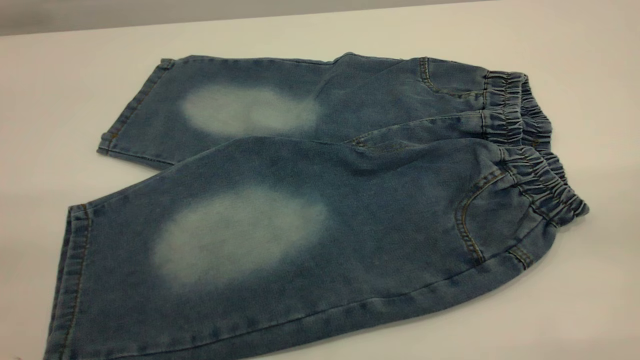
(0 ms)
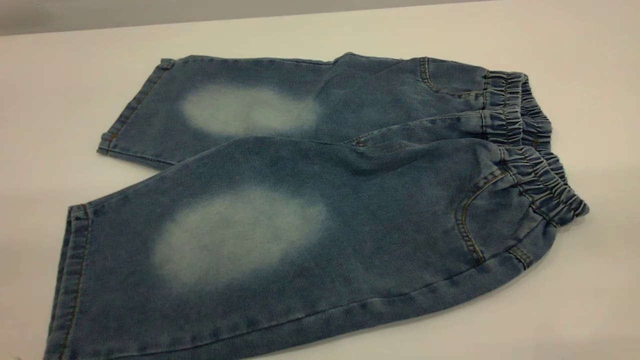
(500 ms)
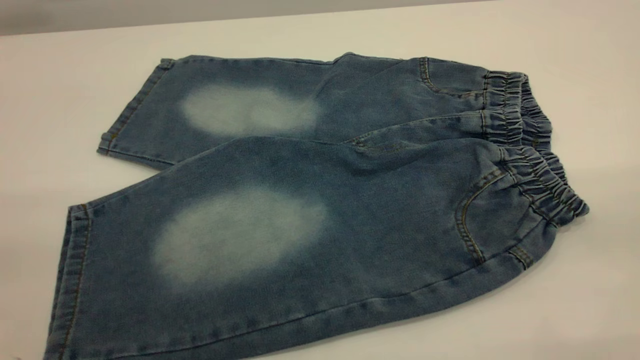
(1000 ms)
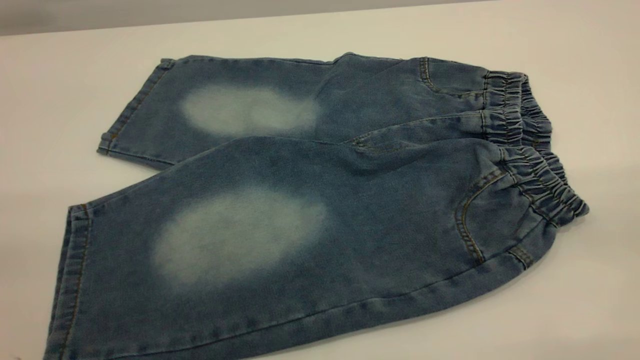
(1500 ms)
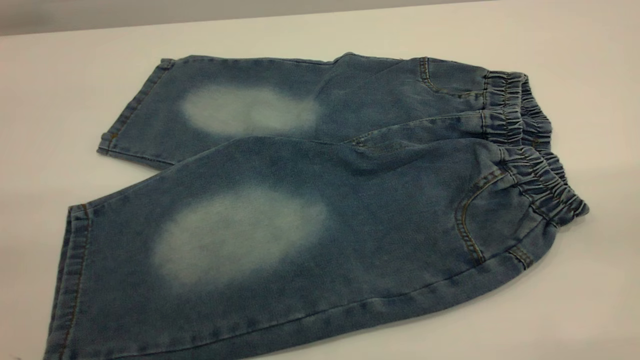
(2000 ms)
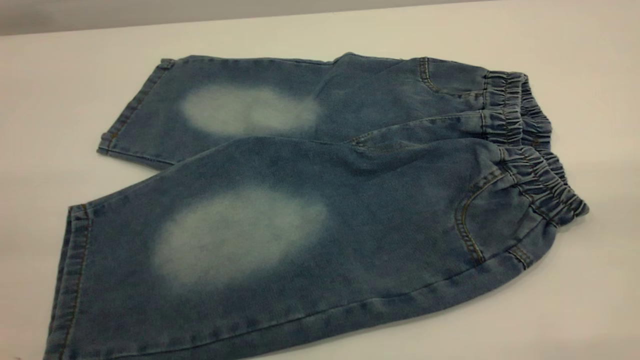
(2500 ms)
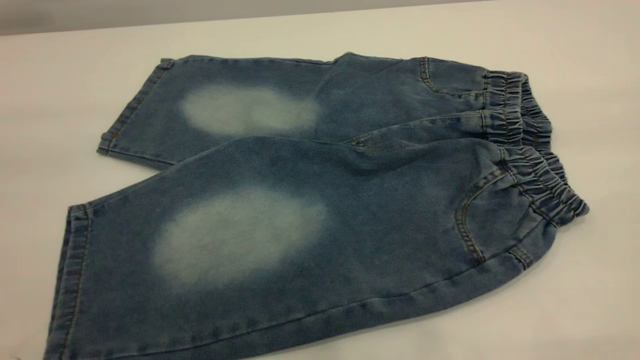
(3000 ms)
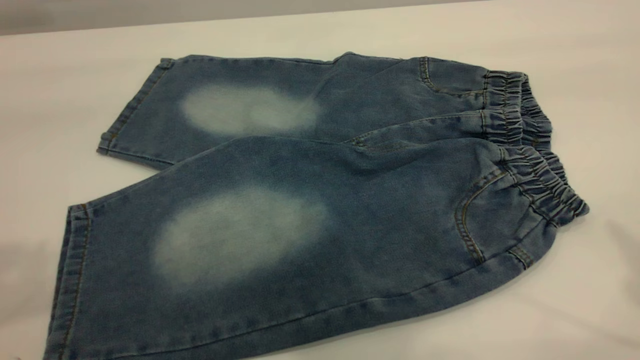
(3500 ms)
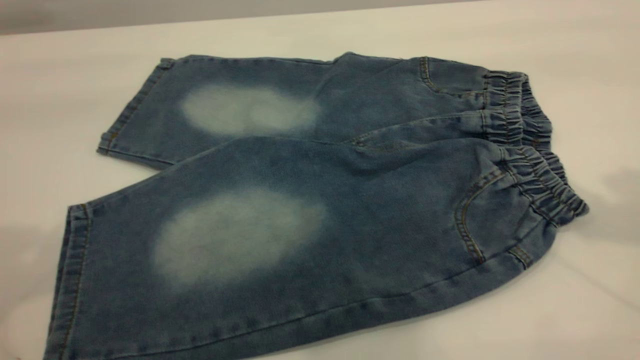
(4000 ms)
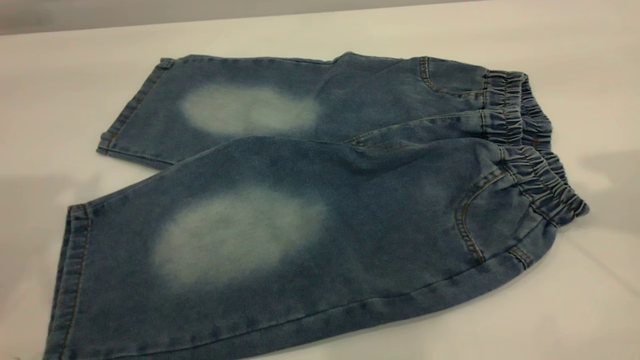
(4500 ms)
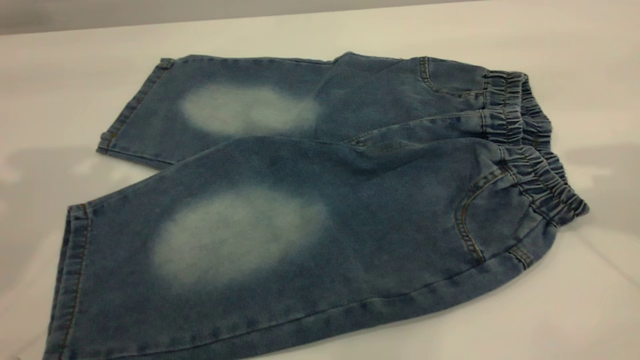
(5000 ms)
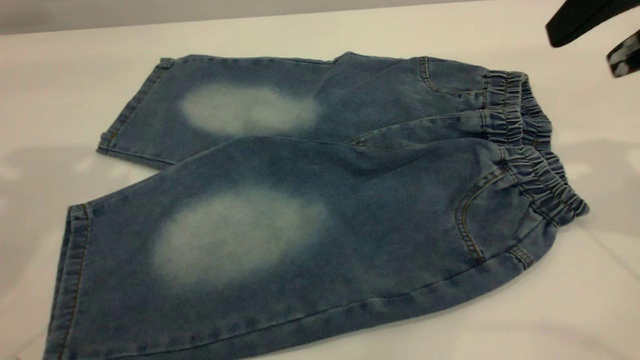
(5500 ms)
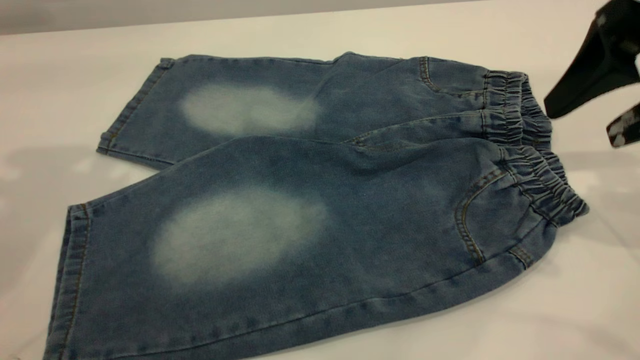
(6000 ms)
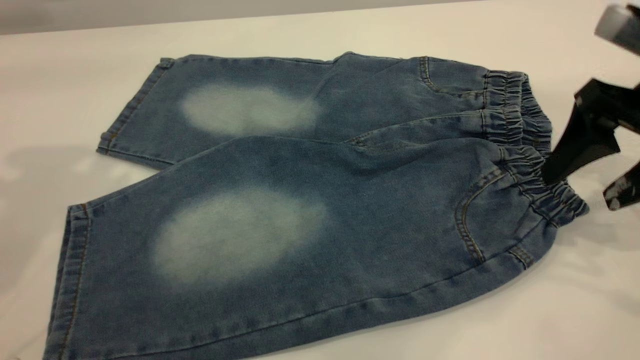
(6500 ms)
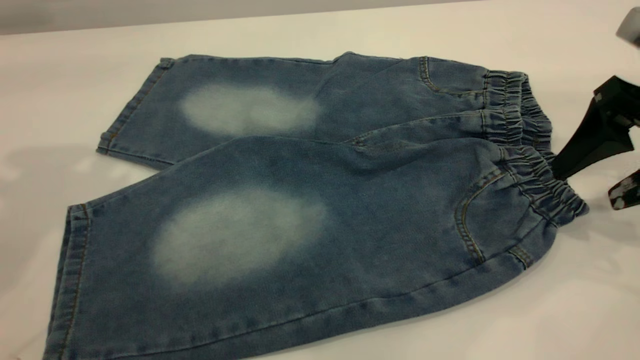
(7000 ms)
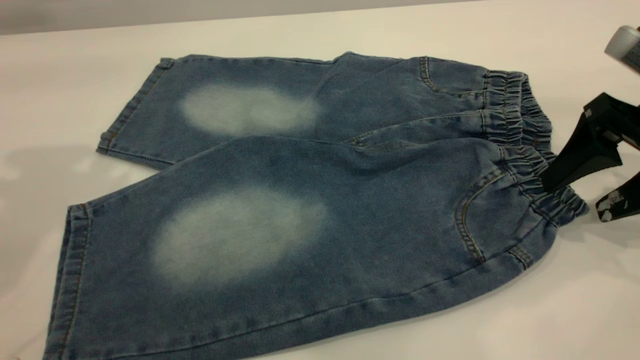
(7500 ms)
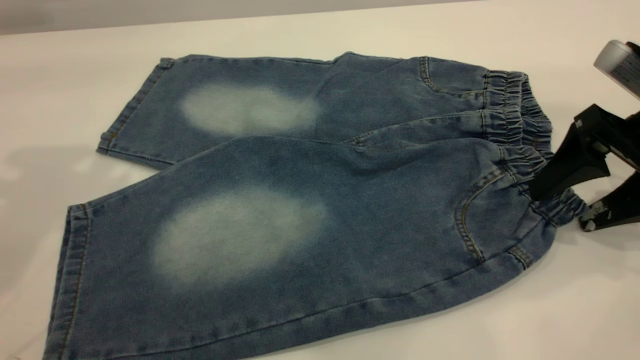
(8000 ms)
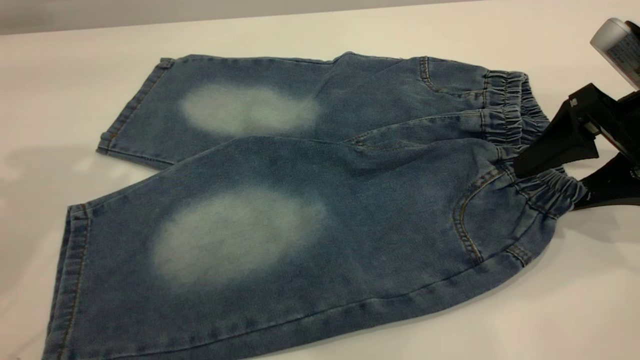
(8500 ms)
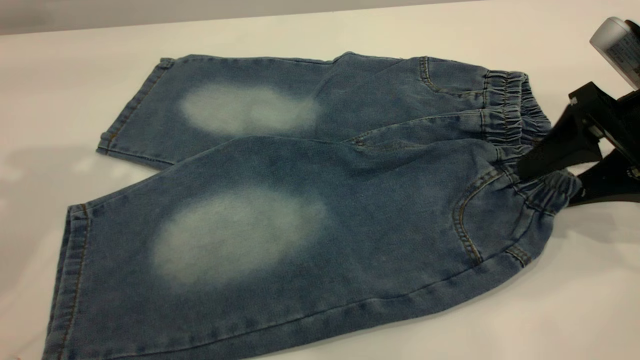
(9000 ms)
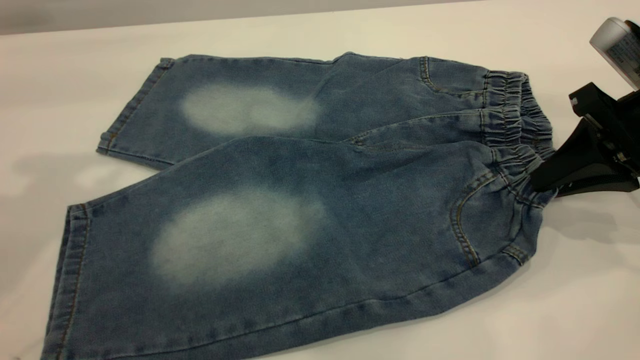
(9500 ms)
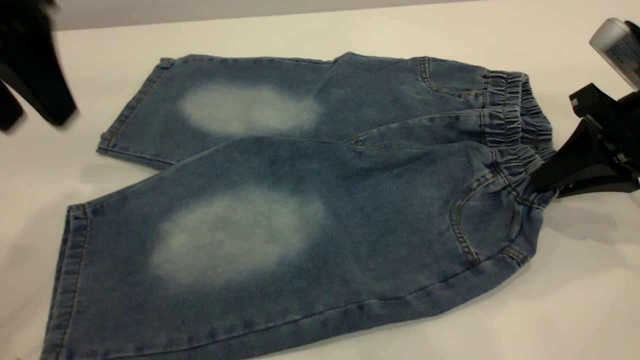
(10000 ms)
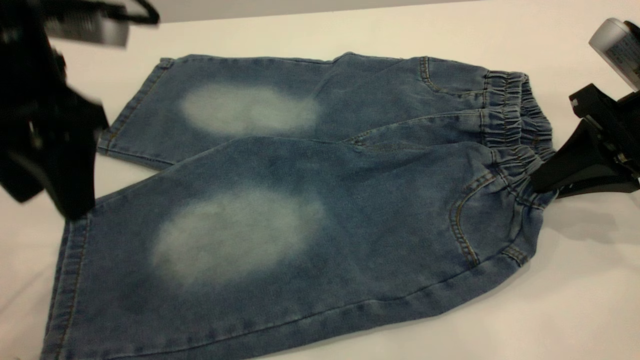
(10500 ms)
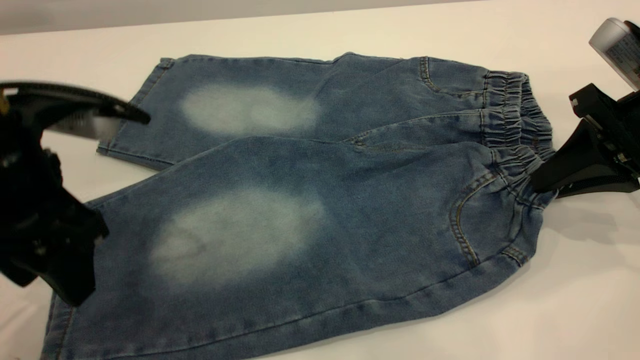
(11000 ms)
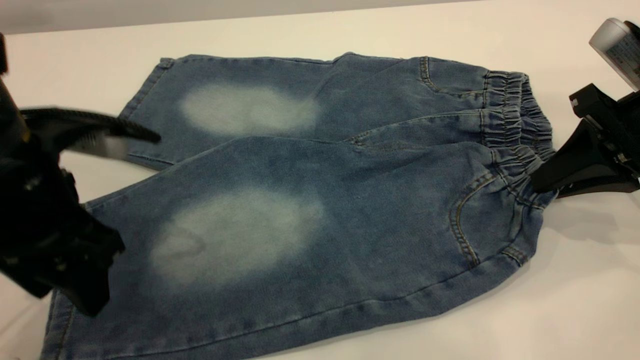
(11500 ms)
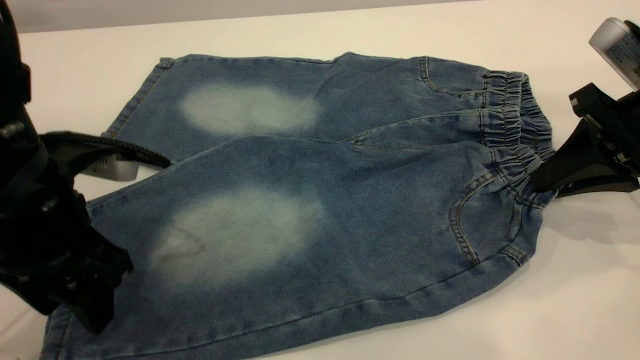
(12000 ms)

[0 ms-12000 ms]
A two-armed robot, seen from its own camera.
0 ms to 2000 ms: Neither gripper changes place.
4000 ms to 6000 ms: The right gripper moves downward, about 15 cm.
6000 ms to 8000 ms: The right gripper travels downward by approximately 10 cm.
8000 ms to 10000 ms: The right gripper closes, while the left gripper is displaced downward and to the right by some 10 cm.
10000 ms to 12000 ms: The left gripper travels downward and backward by some 15 cm.

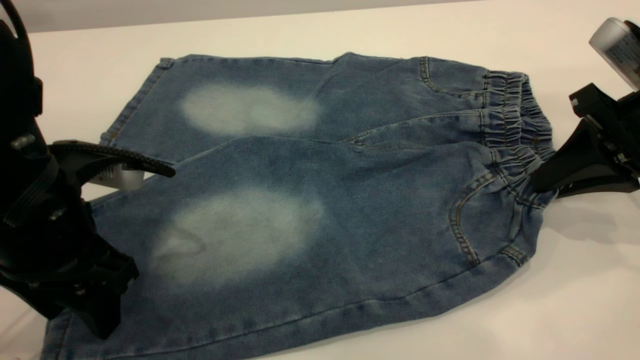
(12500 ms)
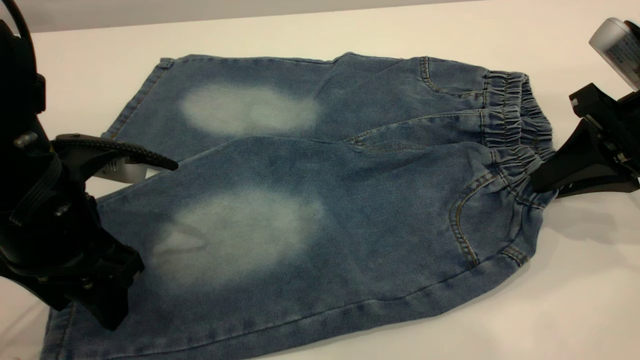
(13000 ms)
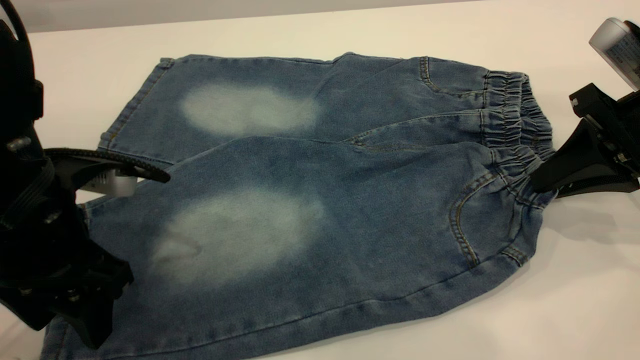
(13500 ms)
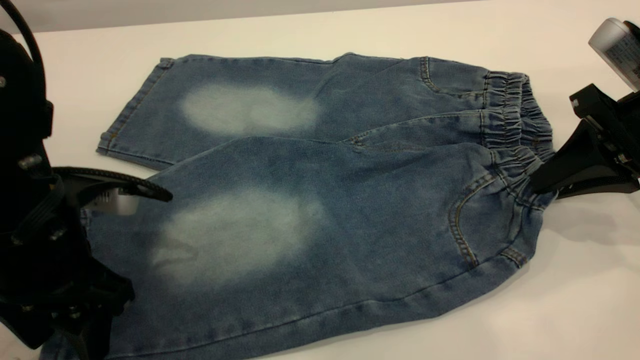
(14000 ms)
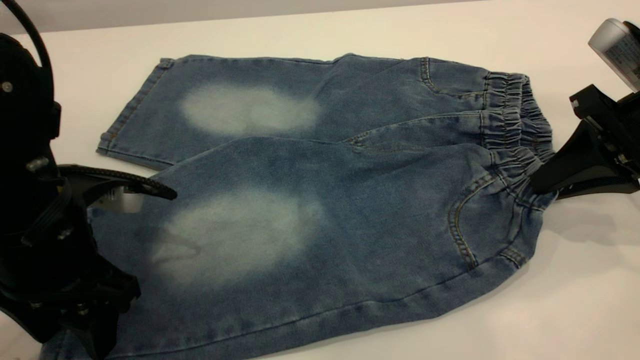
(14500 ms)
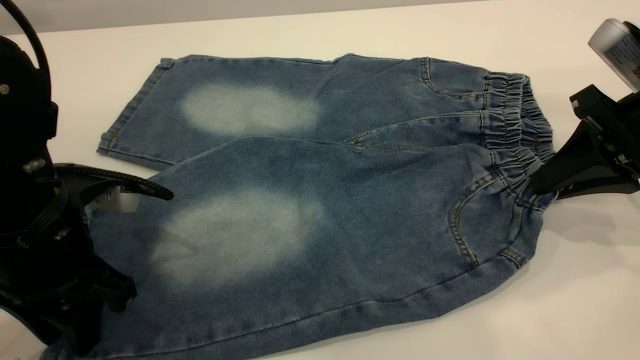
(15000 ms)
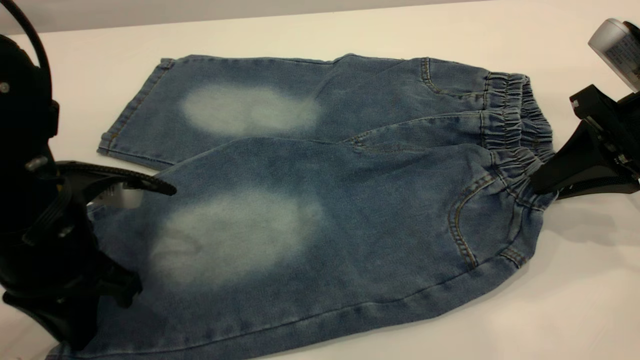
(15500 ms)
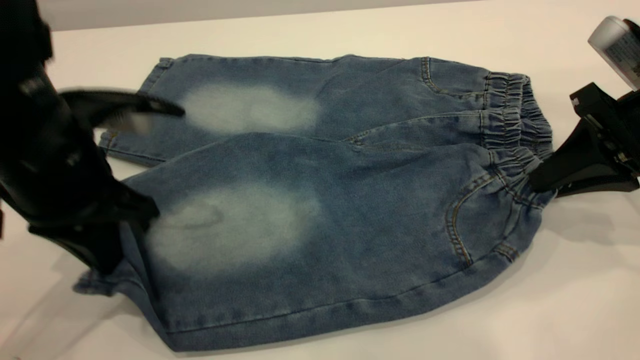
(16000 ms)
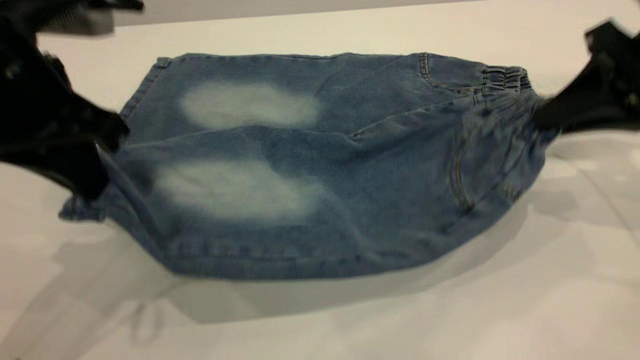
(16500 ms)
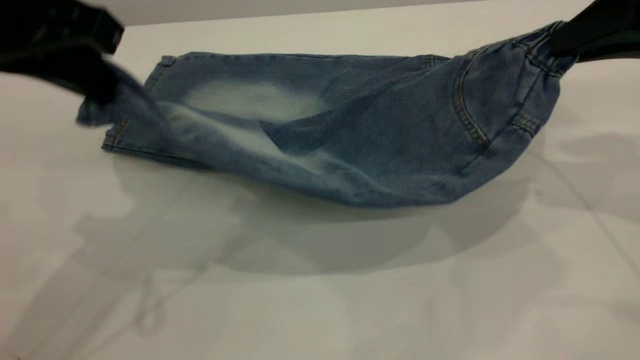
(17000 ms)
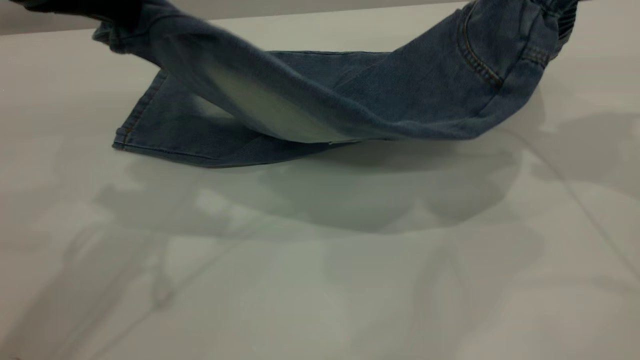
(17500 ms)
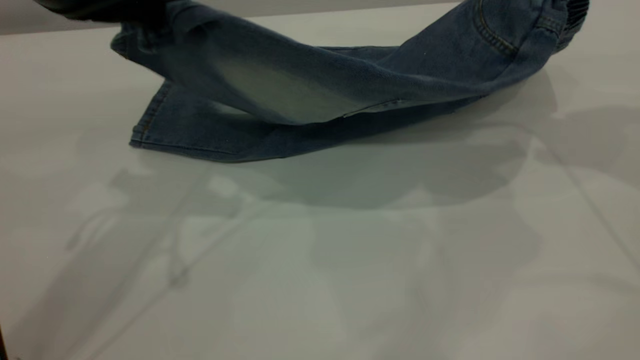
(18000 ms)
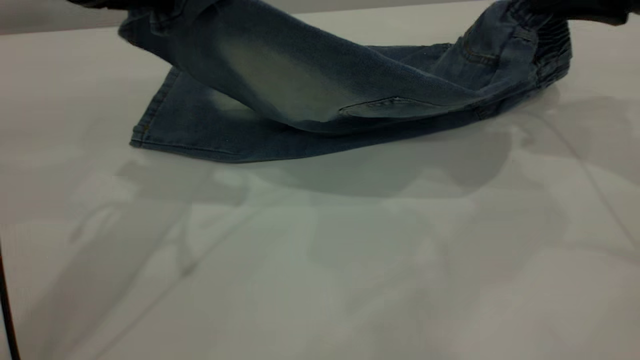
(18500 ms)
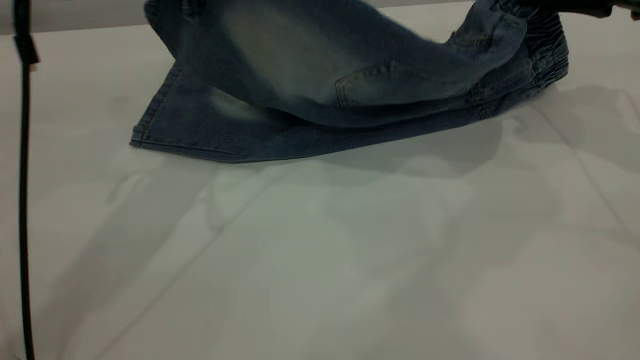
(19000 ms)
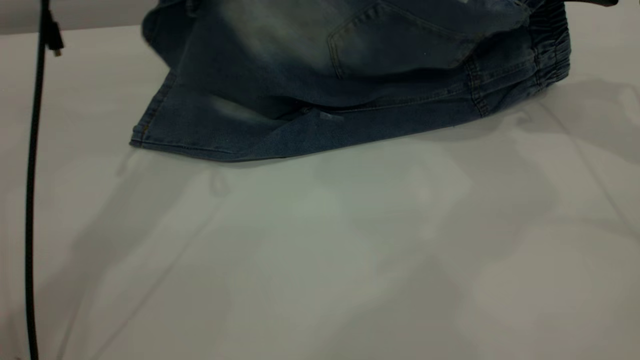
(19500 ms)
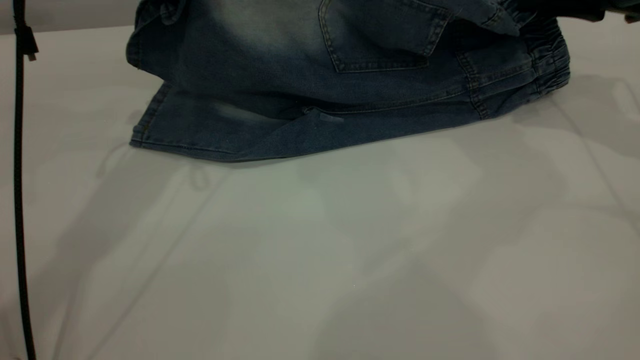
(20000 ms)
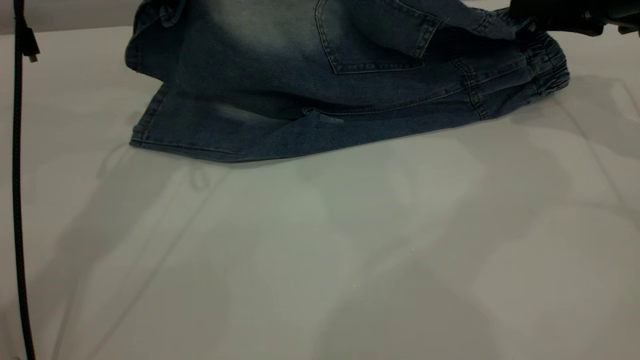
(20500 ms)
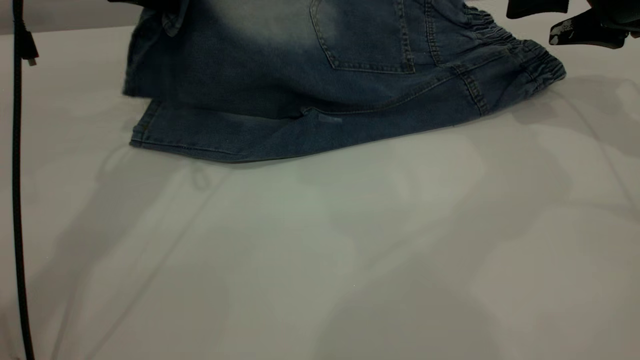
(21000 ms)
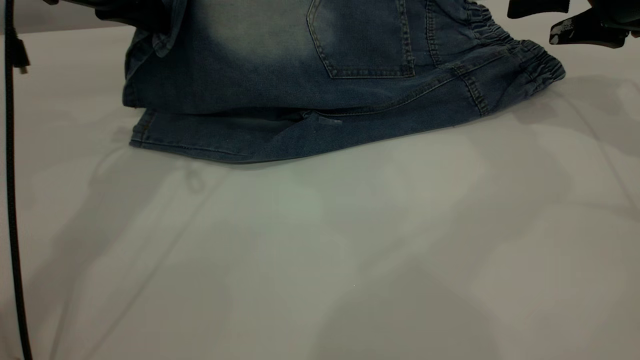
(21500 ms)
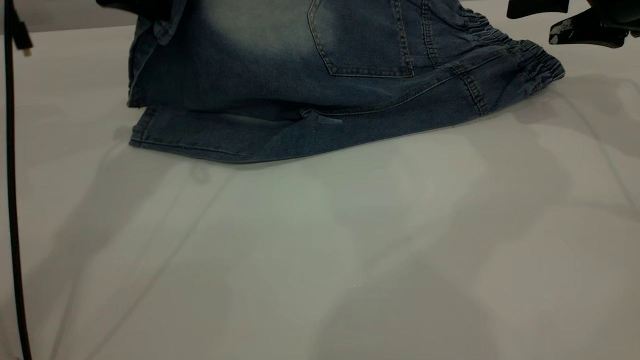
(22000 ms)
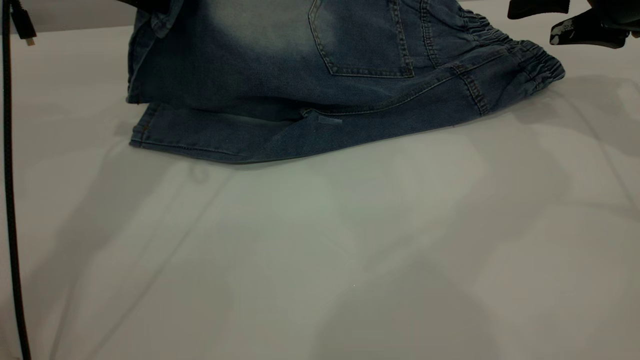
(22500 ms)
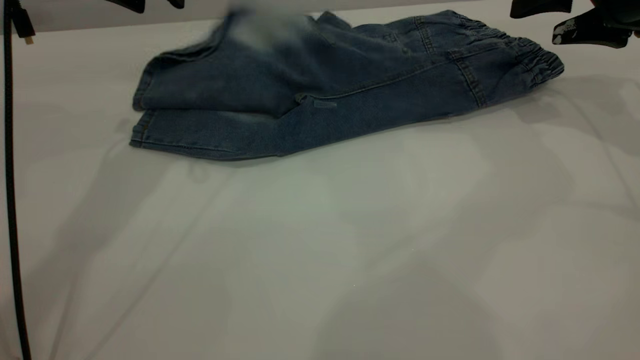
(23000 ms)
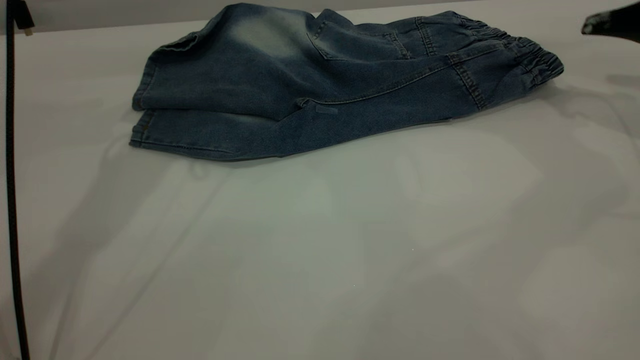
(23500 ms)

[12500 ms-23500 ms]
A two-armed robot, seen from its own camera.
Step, 12500 ms to 23000 ms: Fold the bottom of the pants upward.
12500 ms to 14500 ms: There are only small adjustments of the grippers.
14500 ms to 16000 ms: The left gripper is displaced upward by about 5 cm, and closes.
16000 ms to 18000 ms: Both grippers move upward and forward, roughly 10 cm.
18000 ms to 20000 ms: The left gripper goes some 10 cm forward; the right gripper travels downward and forward by about 10 cm.
20000 ms to 21500 ms: The right gripper opens up.
21500 ms to 23500 ms: The left gripper opens its fingers.
